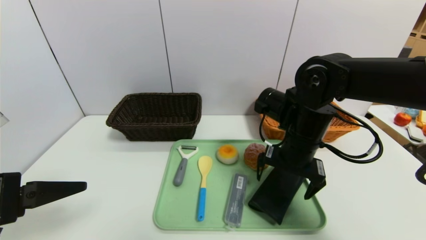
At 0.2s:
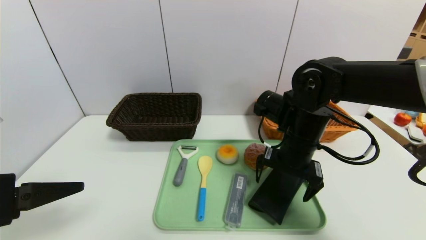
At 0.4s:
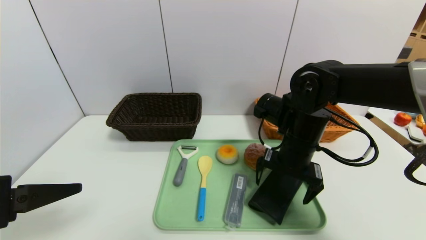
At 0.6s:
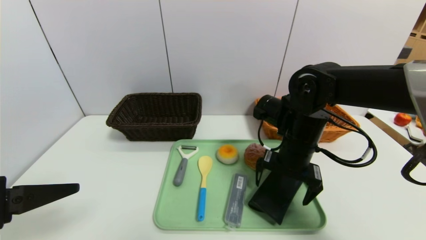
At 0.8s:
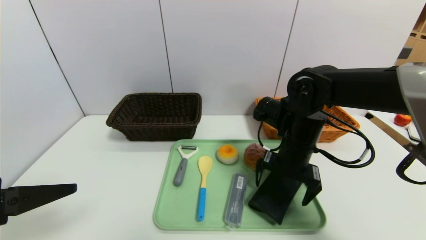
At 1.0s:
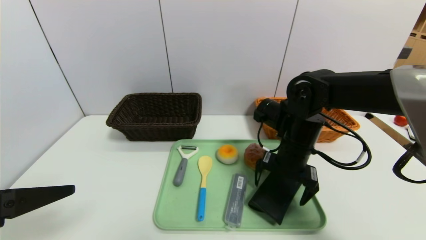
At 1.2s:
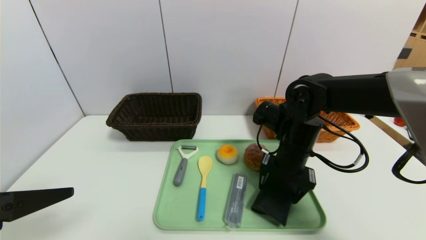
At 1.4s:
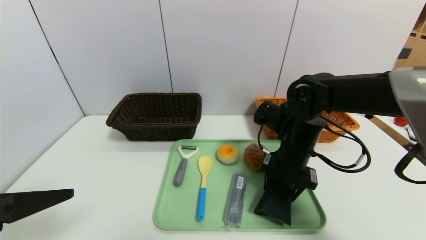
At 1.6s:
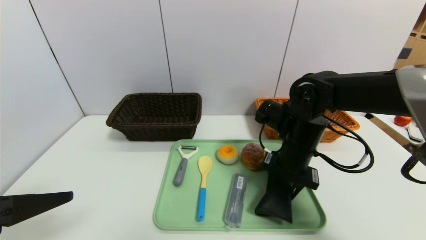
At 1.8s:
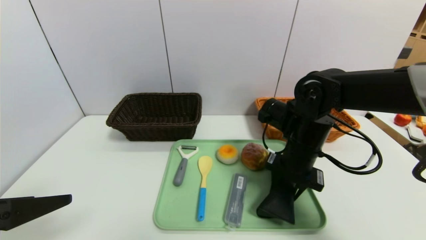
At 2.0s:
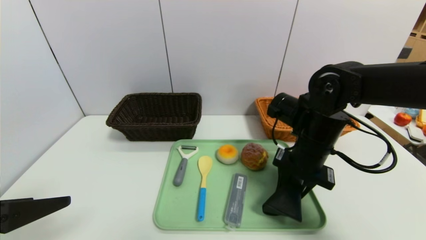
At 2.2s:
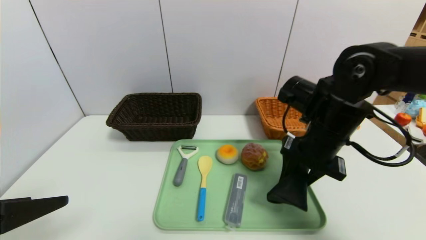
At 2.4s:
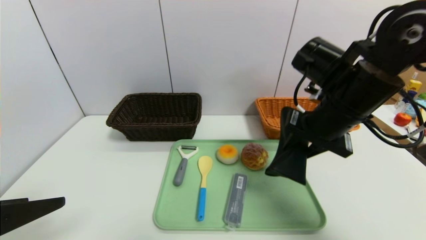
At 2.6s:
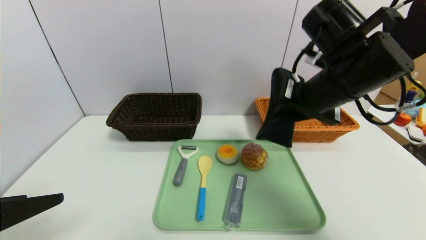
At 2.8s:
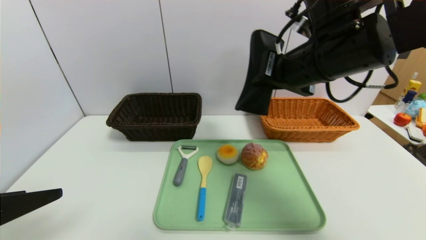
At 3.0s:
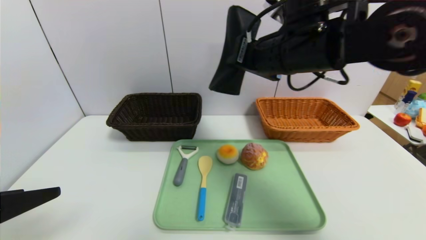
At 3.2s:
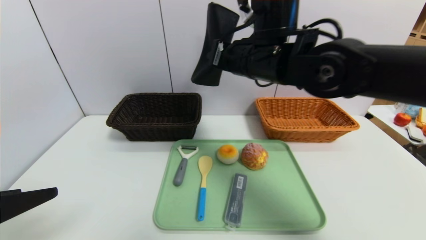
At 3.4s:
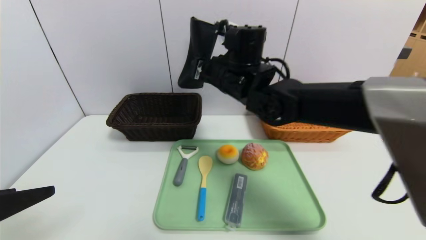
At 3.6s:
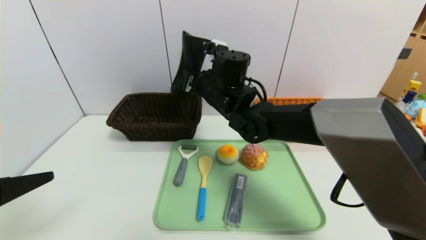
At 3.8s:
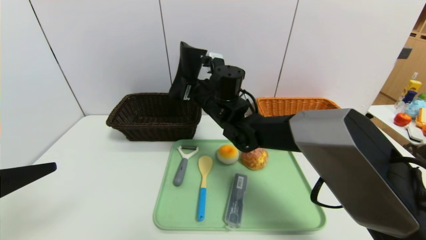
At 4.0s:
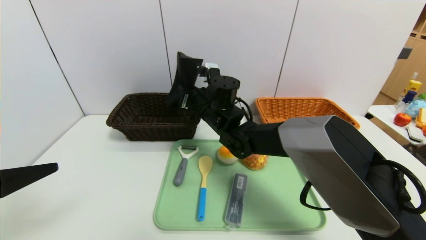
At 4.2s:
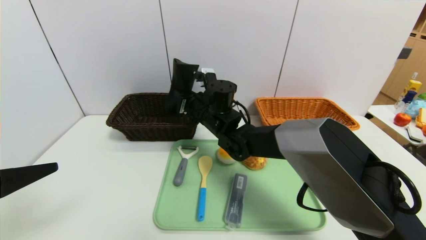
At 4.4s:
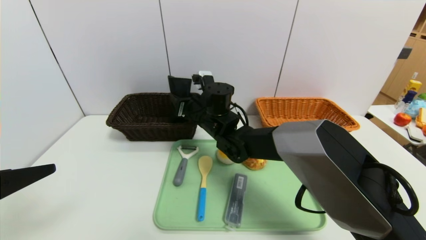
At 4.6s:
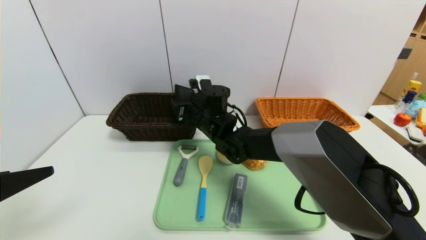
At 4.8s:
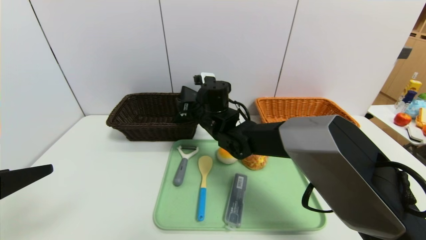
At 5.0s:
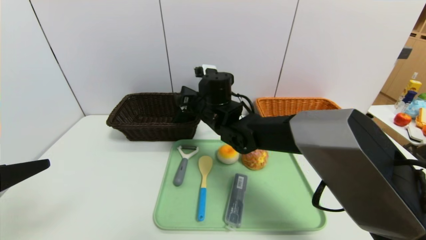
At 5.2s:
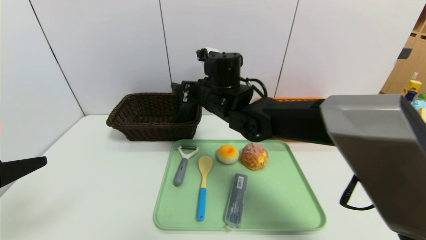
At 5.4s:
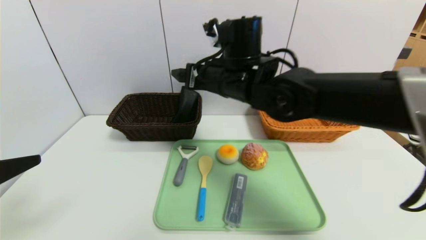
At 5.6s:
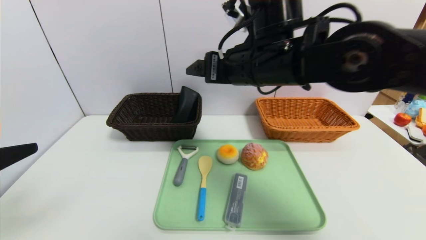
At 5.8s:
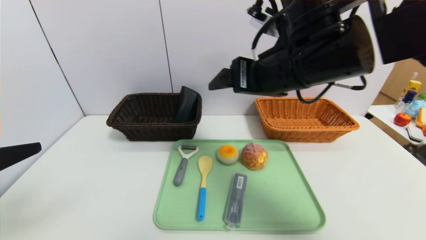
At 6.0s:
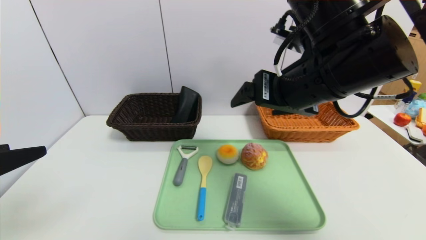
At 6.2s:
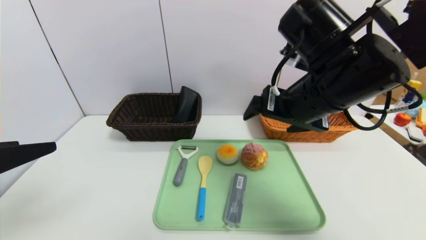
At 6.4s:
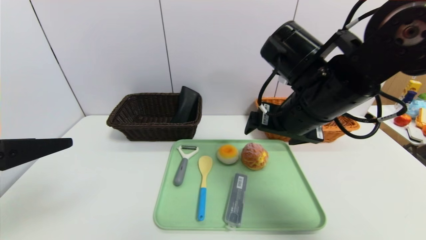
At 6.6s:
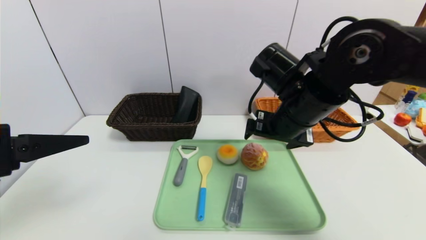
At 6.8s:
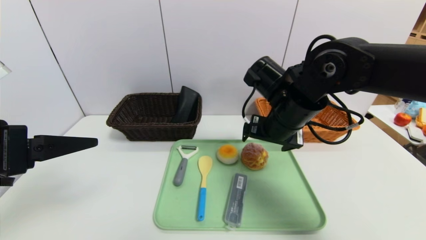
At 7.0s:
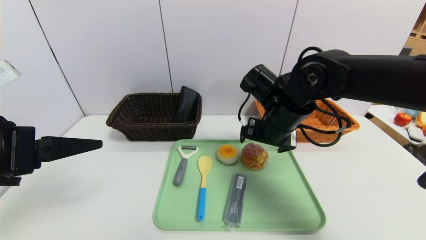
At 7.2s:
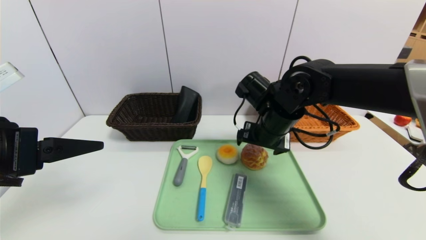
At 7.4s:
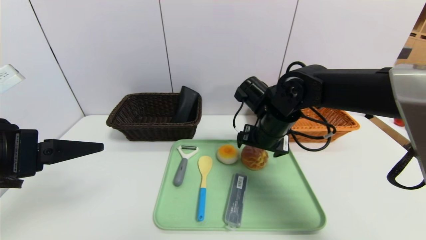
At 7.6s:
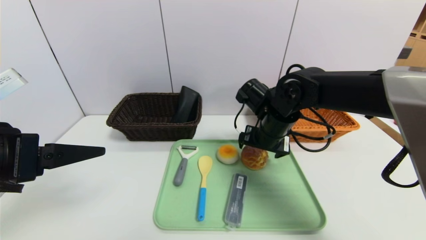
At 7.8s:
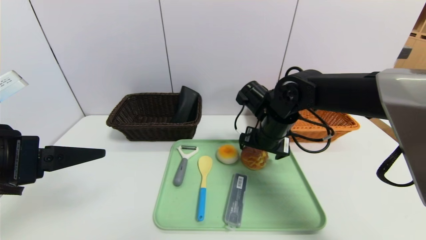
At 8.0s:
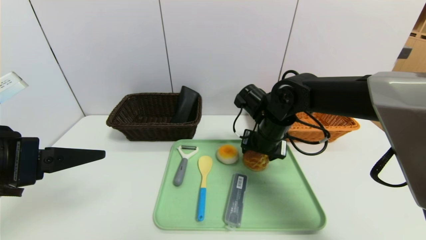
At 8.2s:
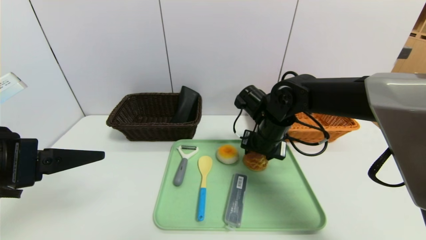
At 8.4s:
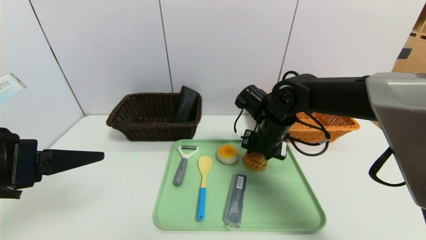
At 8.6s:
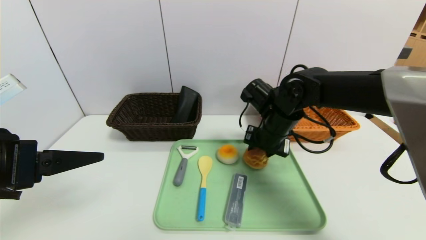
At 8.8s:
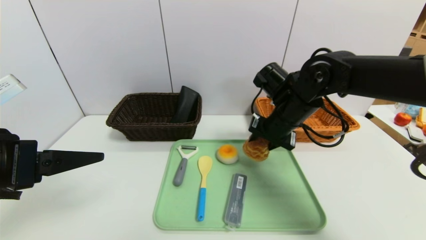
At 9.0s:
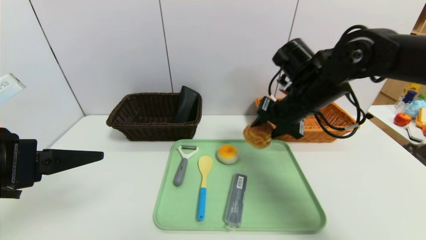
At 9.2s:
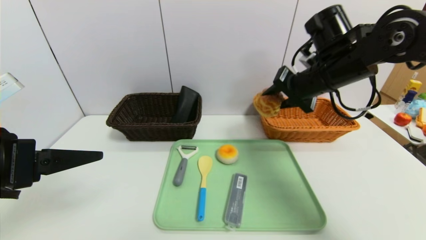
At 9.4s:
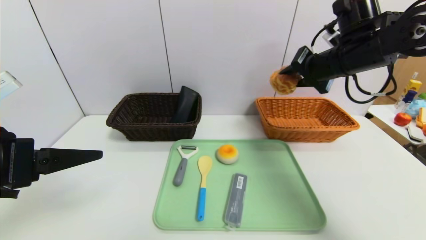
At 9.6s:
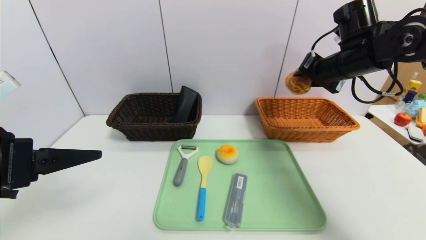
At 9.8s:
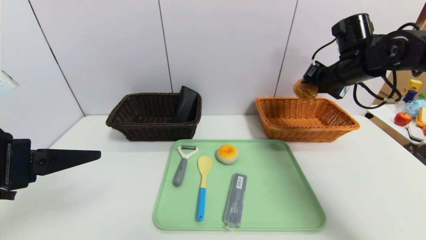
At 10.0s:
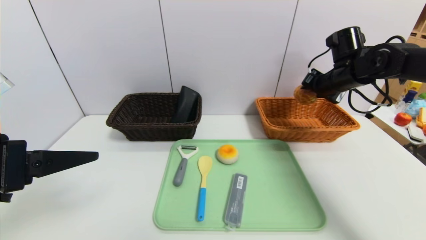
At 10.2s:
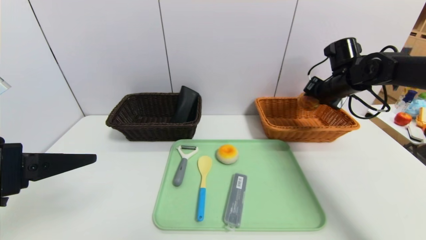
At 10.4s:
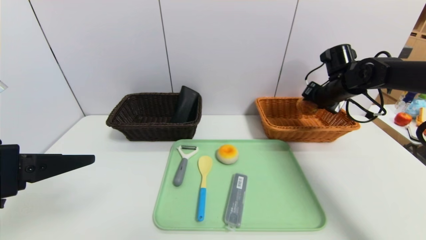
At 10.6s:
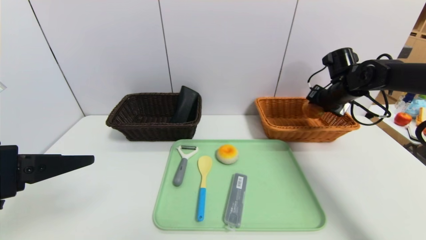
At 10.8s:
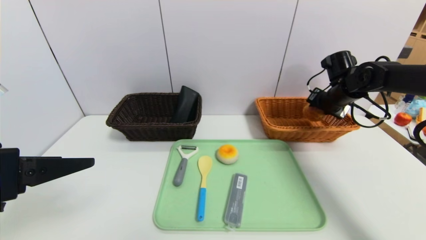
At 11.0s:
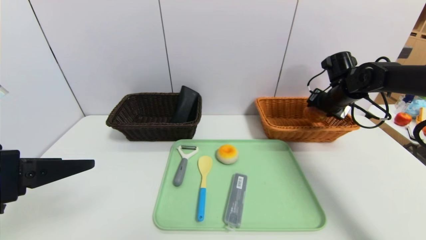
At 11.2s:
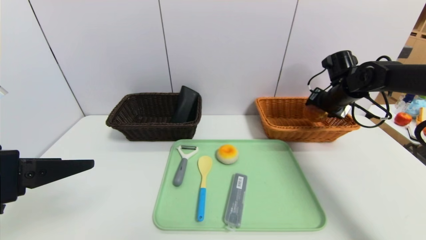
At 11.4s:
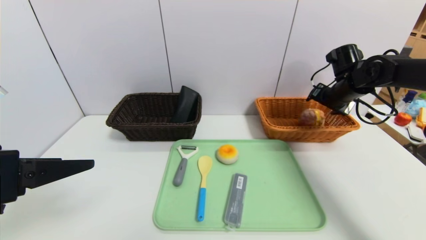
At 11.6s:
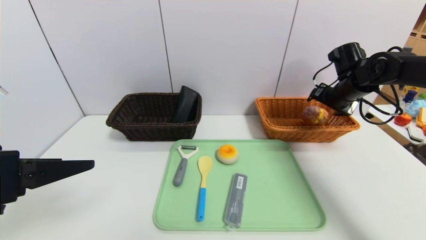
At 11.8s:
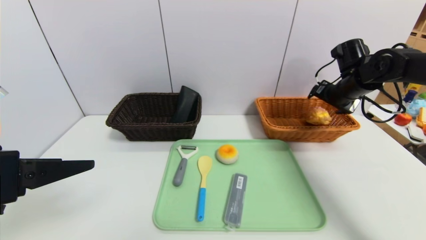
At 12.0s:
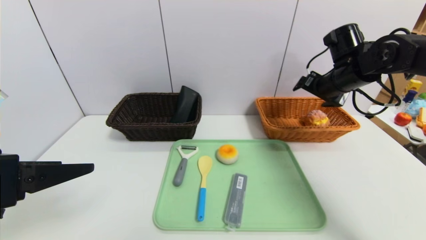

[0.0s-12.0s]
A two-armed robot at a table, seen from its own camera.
Task of the whole recording: place the food in the right basket with the right gripper, and place the non food items in the left basket with the left gripper.
Step, 5.8s to 11.4s: Grasp the round bread and put it in the right basket.
0.0s to 1.6s: The right gripper closes up.
1.6s to 3.0s: The right gripper shifts approximately 15 cm upward.
3.0s to 4.4s: The right gripper heads downward, to the left and forward, covering about 25 cm.
4.4s to 6.0s: The right gripper is displaced backward, upward and to the right by about 25 cm, and opens its fingers.
6.0s to 7.6s: The left gripper travels forward by some 5 cm. Meanwhile the right gripper heads downward and forward, covering some 15 cm.
7.6s to 9.0s: The right gripper shifts some 10 cm upward and to the right, and closes.
9.0s to 10.4s: The right gripper goes about 20 cm to the right and forward.
10.4s to 12.0s: The right gripper heads backward, covering about 5 cm, and opens.

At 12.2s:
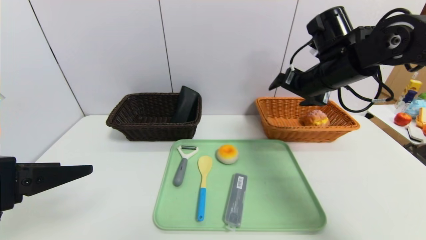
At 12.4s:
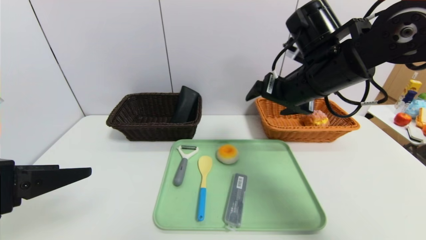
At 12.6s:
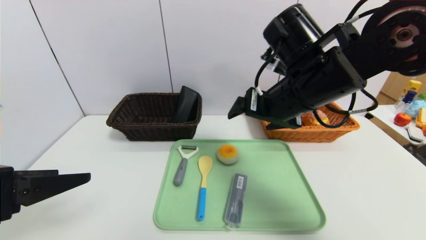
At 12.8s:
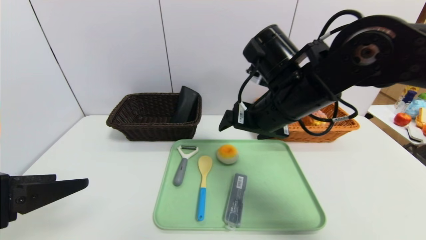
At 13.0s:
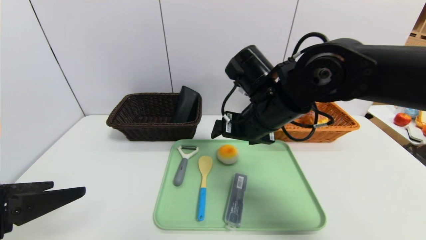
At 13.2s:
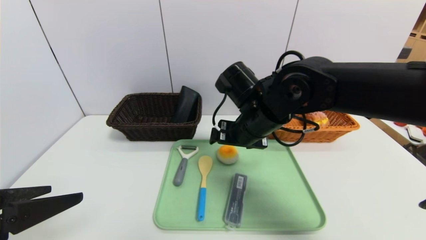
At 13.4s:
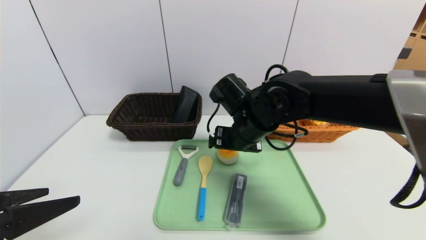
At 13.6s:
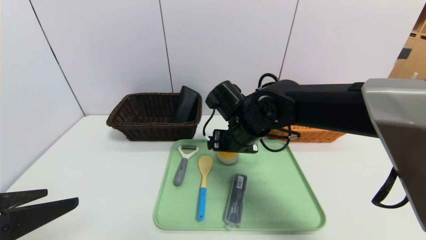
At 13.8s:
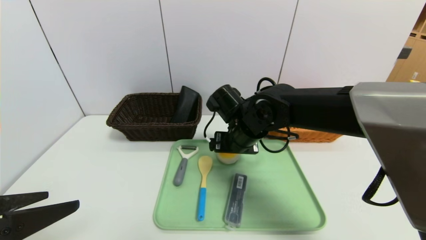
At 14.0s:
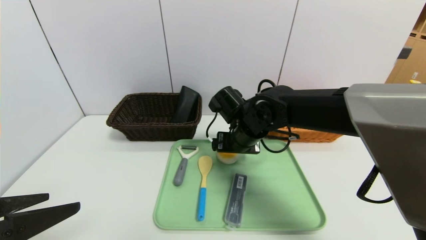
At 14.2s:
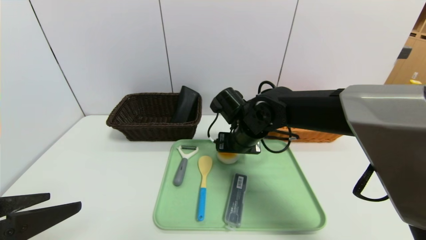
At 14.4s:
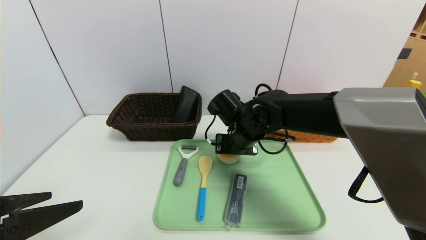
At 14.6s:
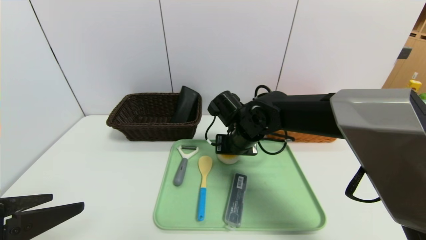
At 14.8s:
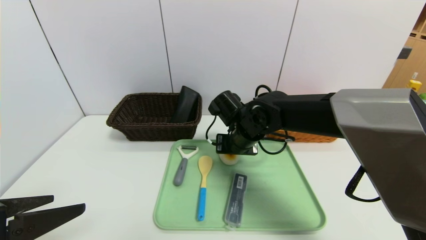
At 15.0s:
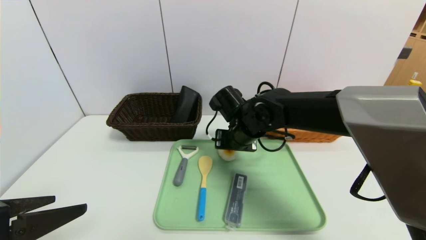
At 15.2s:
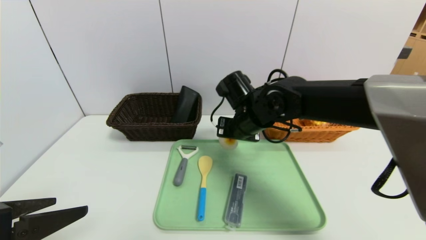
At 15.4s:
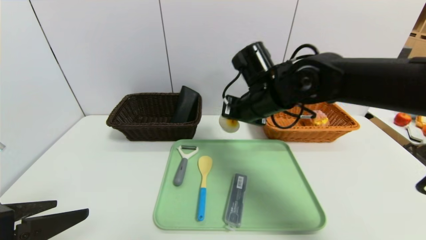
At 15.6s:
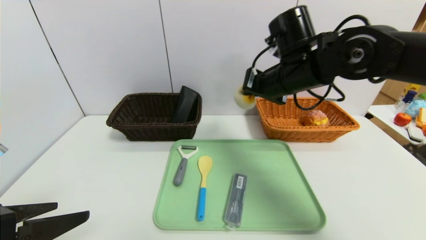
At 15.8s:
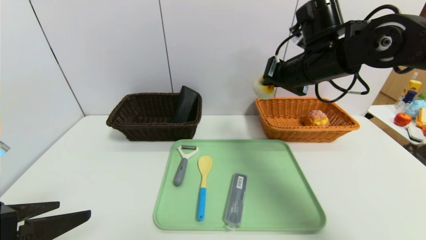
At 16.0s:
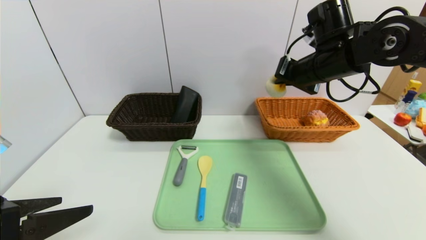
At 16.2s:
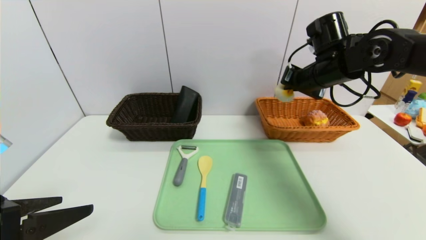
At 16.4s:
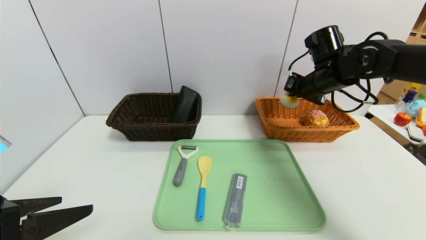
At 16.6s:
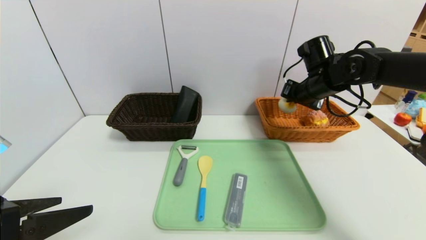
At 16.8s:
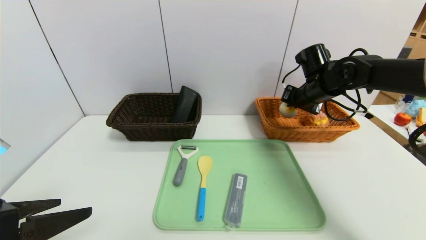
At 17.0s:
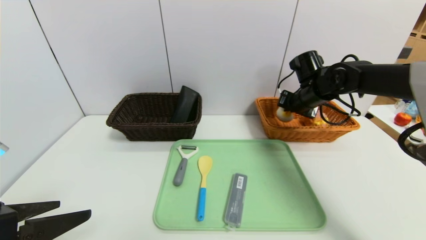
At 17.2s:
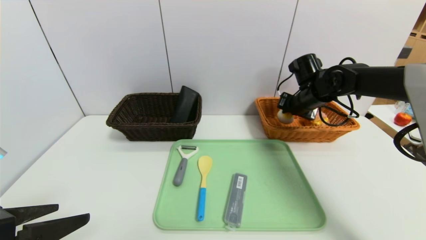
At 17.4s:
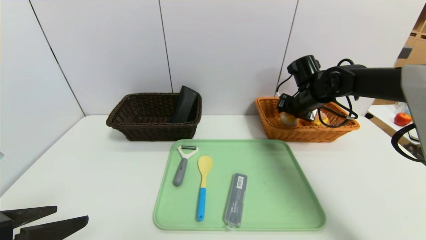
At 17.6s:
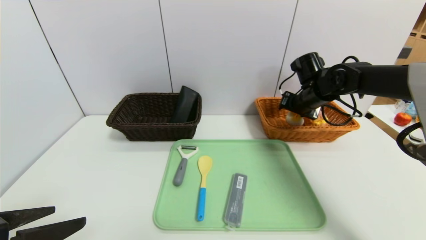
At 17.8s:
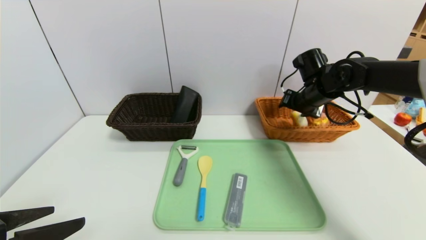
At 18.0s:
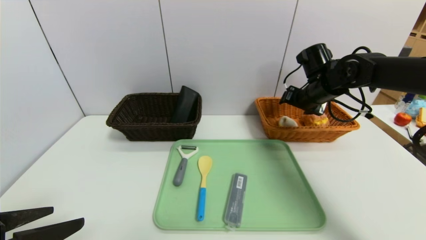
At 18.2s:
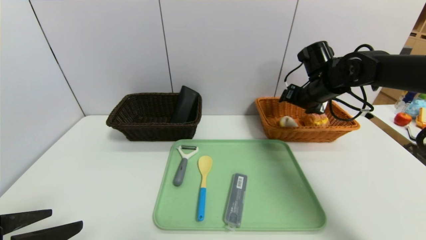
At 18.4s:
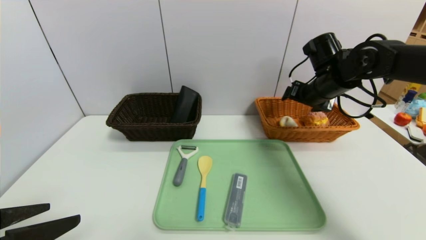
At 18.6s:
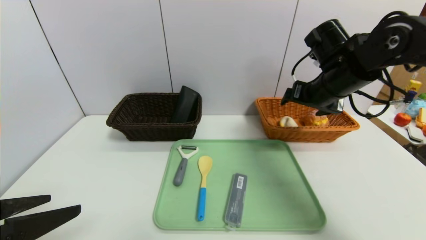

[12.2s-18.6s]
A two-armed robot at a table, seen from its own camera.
Task of the whole recording: place the food in the right basket with the right gripper, and place the non food items in the left basket with the left gripper.
Step, 12.2s to 18.2s: Grasp the egg yolk pastry and put it in the right basket.
12.2s to 13.8s: The right gripper is displaced to the left and downward by roughly 20 cm.
13.8s to 15.4s: The right gripper shifts approximately 5 cm upward, and closes up.
15.4s to 17.0s: The right gripper travels to the right and forward by about 15 cm.
17.0s to 18.6s: The right gripper goes approximately 10 cm backward and upward, and opens.
